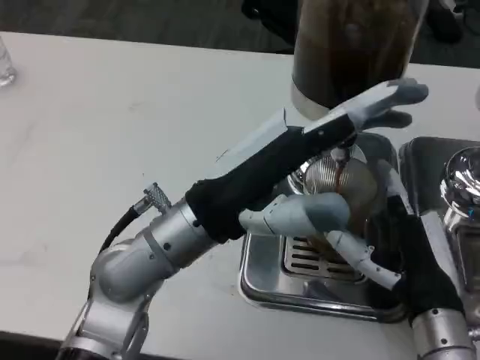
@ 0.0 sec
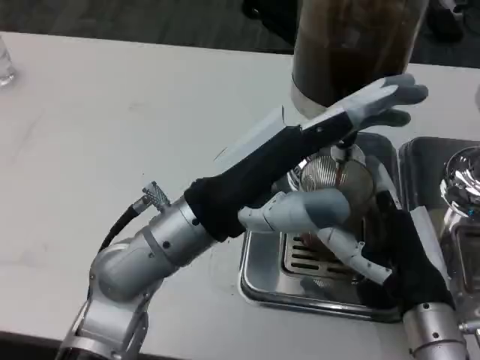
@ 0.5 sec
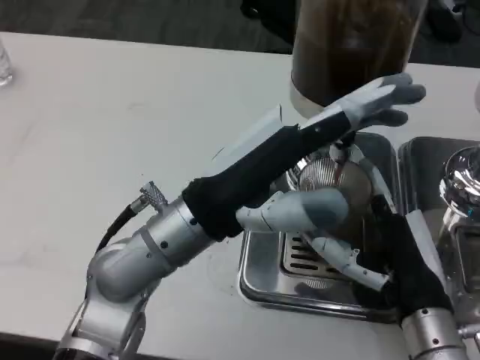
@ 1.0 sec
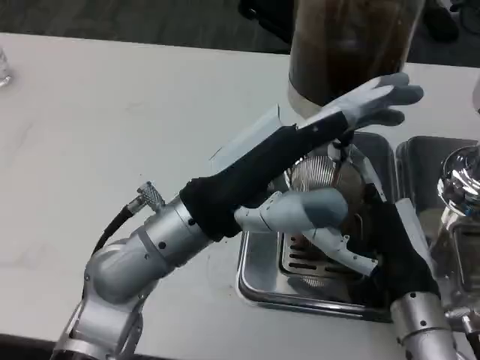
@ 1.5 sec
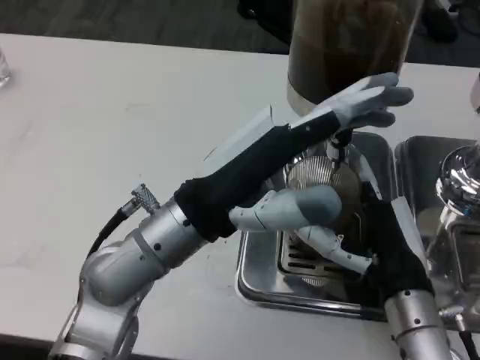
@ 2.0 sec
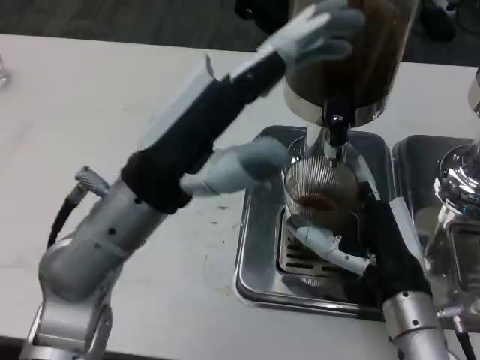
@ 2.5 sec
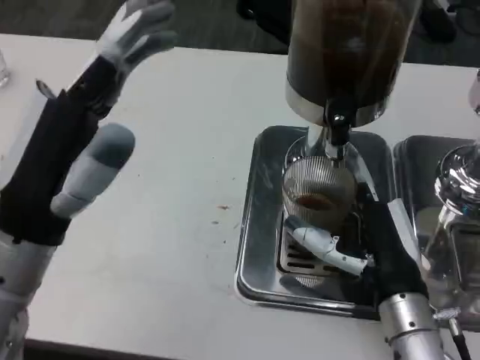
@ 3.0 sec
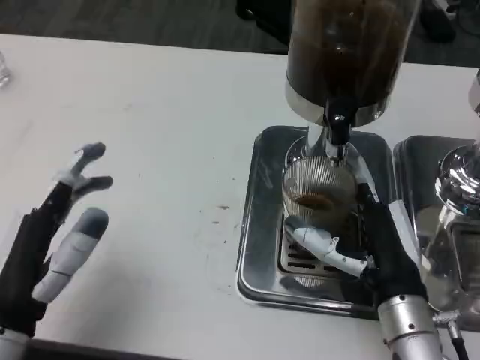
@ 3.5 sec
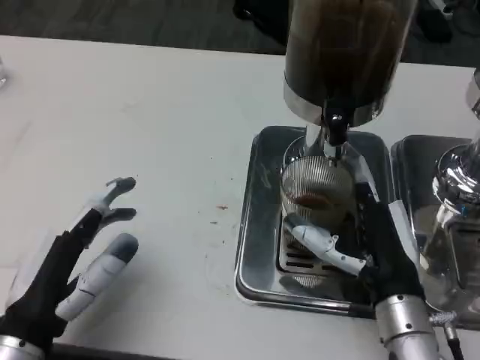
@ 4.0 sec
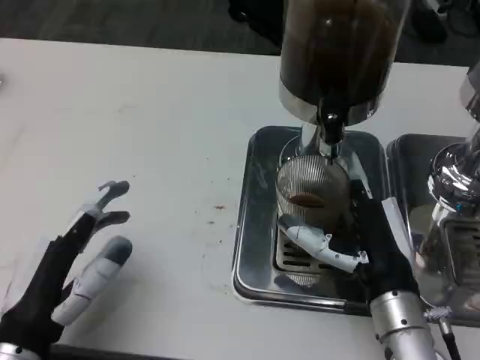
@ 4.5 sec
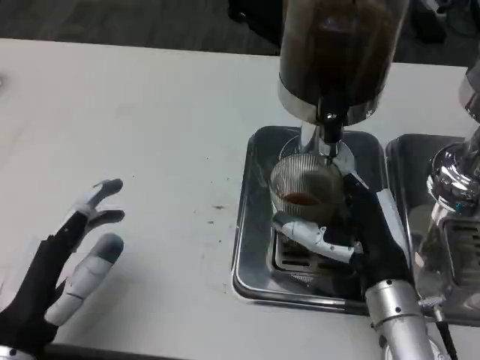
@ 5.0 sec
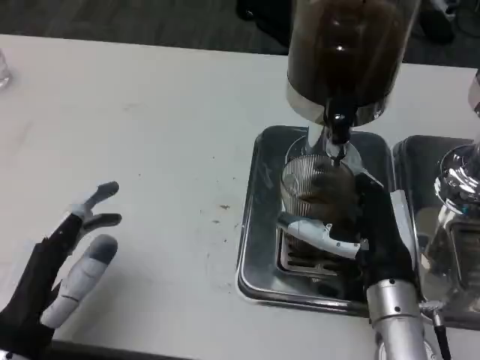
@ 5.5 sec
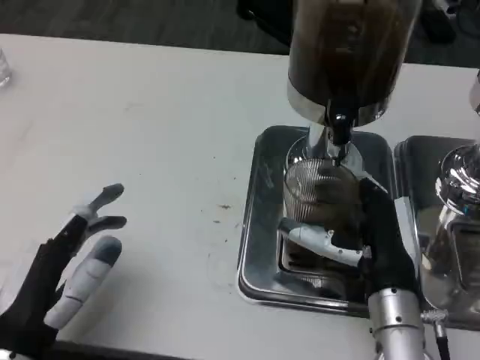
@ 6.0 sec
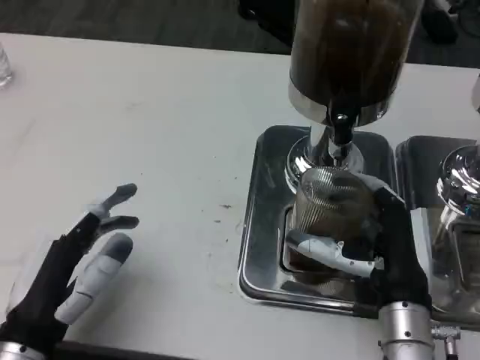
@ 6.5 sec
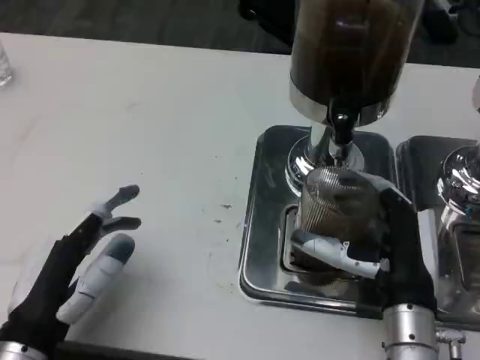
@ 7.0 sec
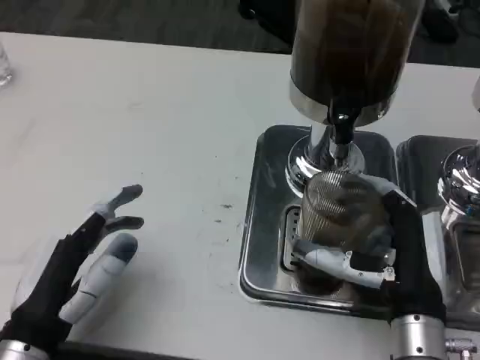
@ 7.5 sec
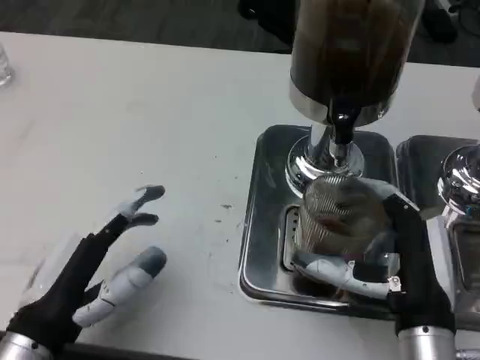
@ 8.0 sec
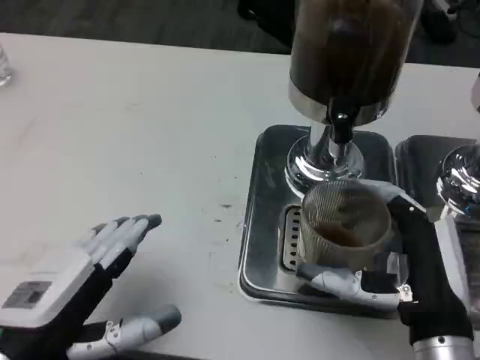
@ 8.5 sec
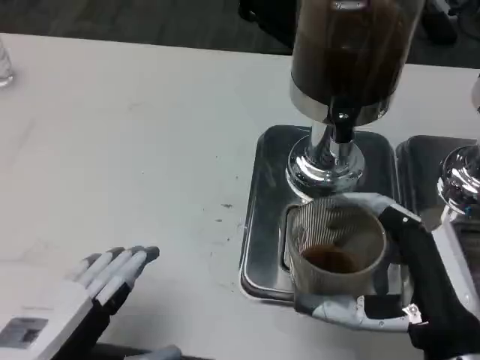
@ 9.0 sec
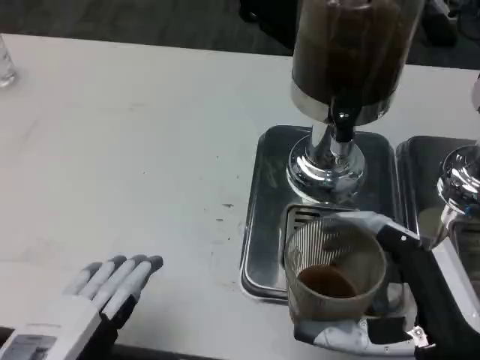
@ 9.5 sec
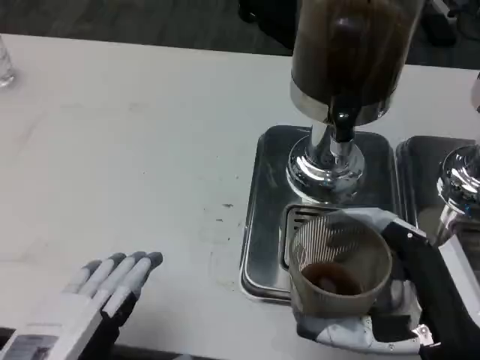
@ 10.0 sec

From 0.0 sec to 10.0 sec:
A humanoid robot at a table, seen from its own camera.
Task of the whole recording: Grasp the cup under the faucet to collect the drink, then remove the cup.
From 2.0 sec to 4.0 sec: The left hand is displaced to the left, backward and downward by roughly 20 cm.
From 4.0 sec to 6.0 sec: There are only small adjustments of the hands.
From 8.0 sec to 10.0 sec: Both hands move backward, roughly 5 cm.

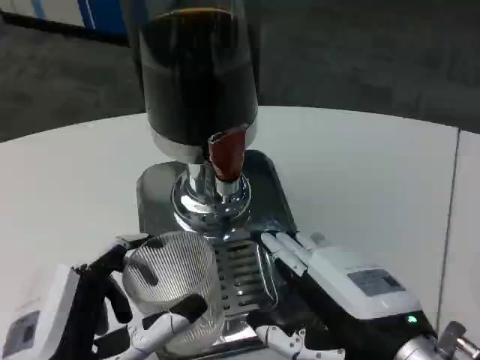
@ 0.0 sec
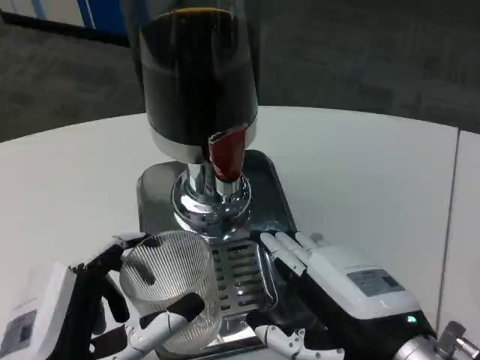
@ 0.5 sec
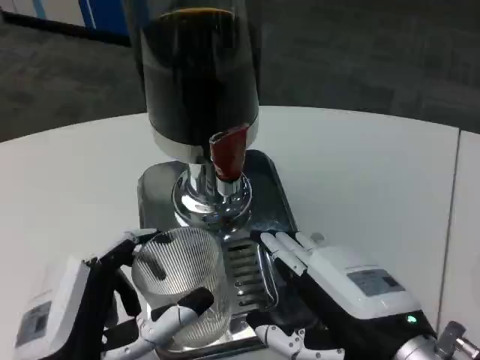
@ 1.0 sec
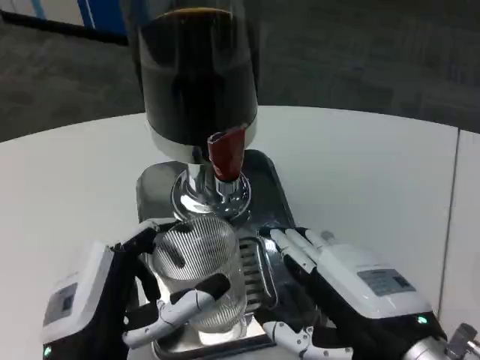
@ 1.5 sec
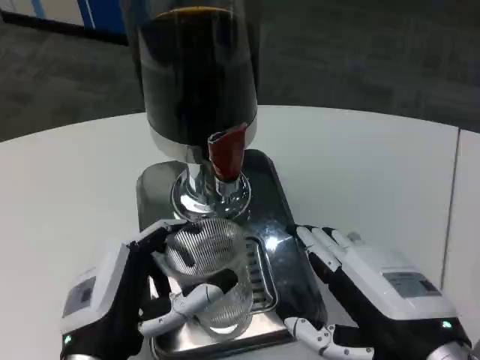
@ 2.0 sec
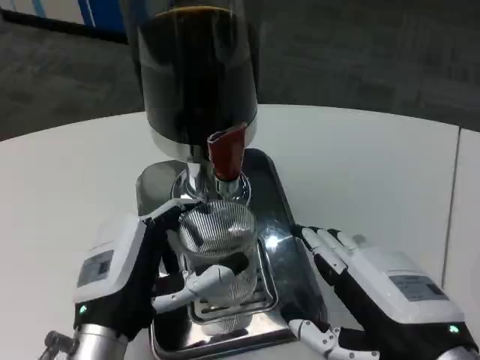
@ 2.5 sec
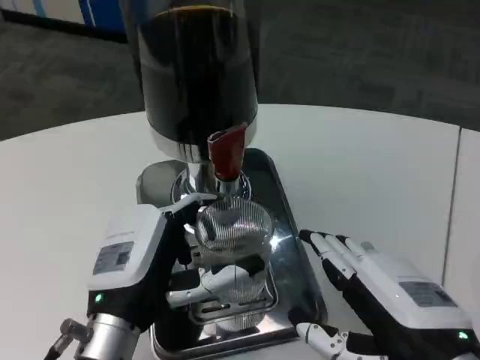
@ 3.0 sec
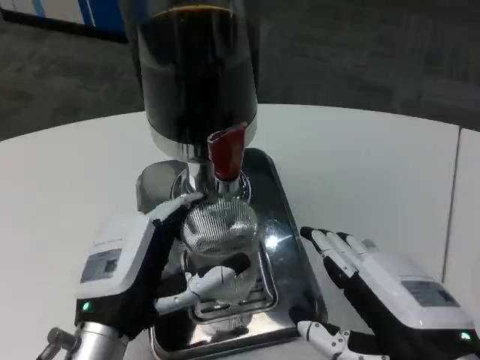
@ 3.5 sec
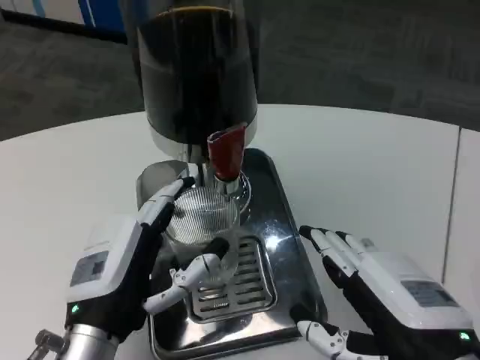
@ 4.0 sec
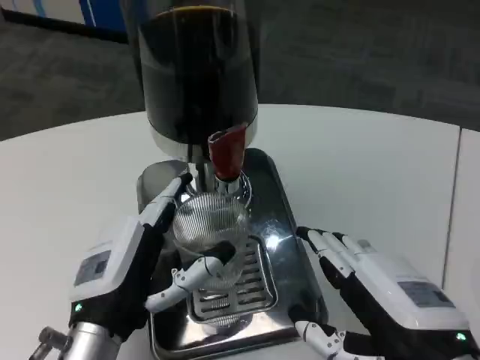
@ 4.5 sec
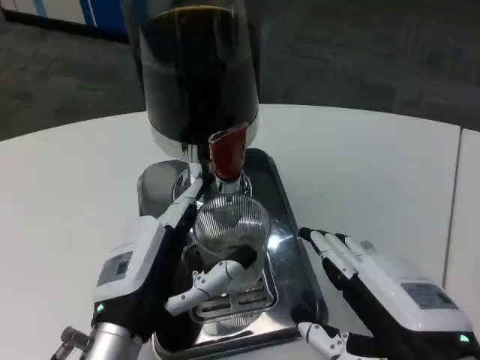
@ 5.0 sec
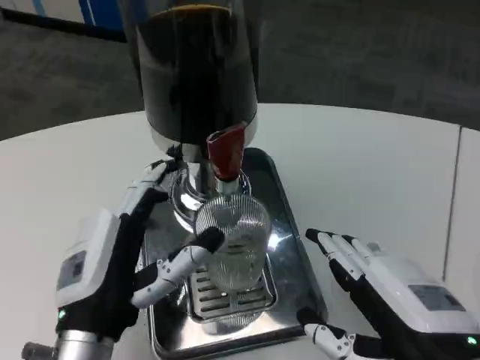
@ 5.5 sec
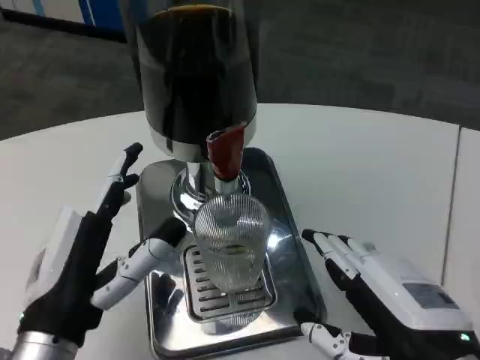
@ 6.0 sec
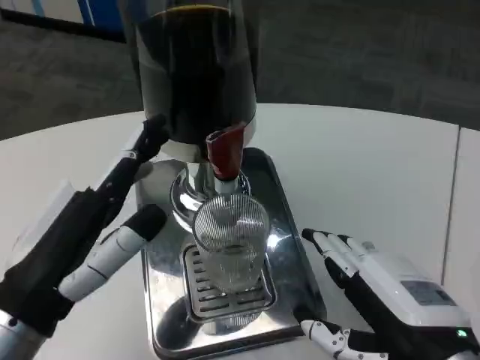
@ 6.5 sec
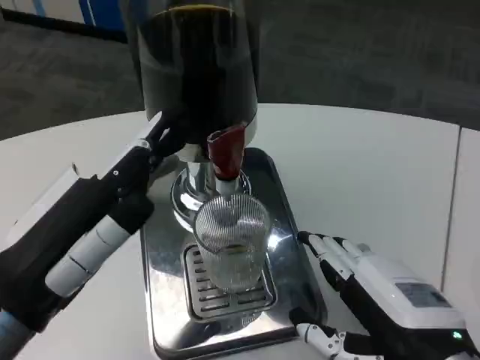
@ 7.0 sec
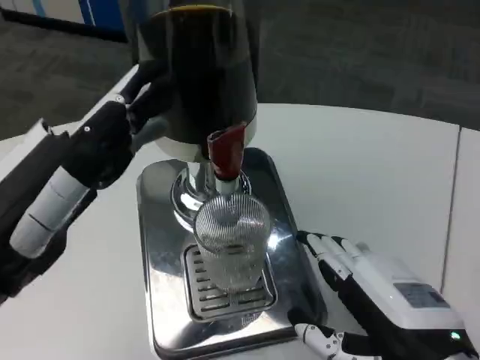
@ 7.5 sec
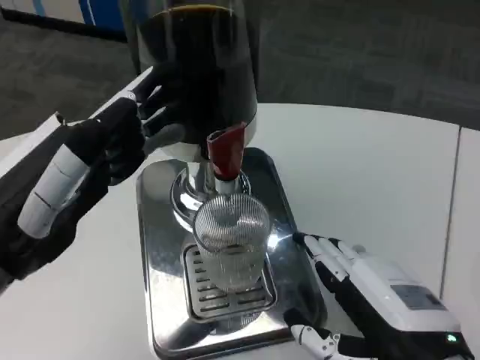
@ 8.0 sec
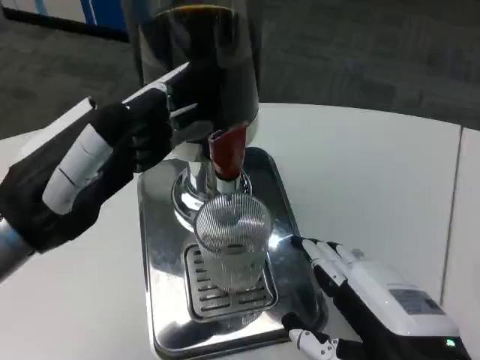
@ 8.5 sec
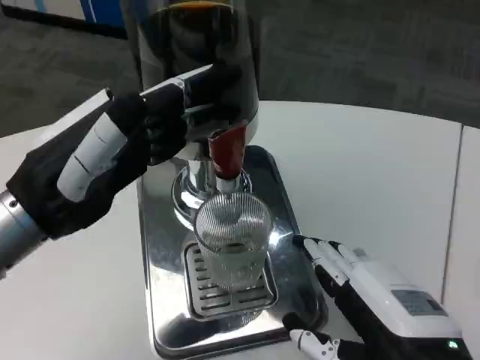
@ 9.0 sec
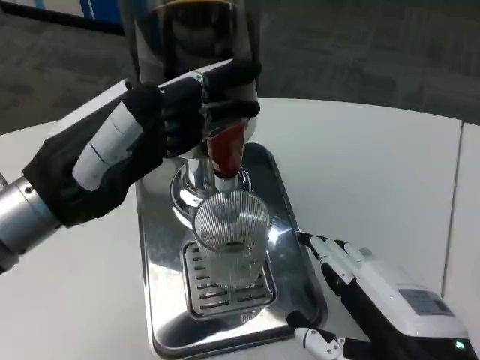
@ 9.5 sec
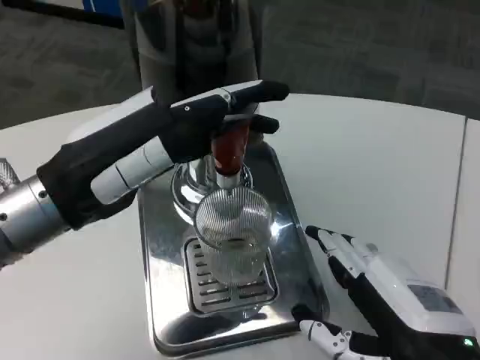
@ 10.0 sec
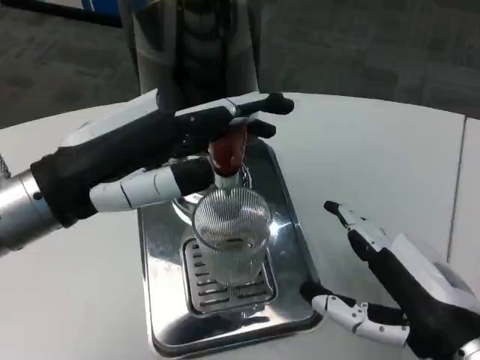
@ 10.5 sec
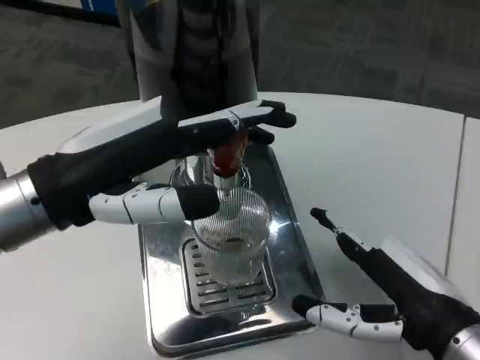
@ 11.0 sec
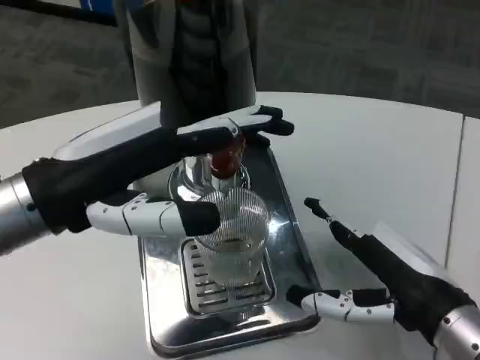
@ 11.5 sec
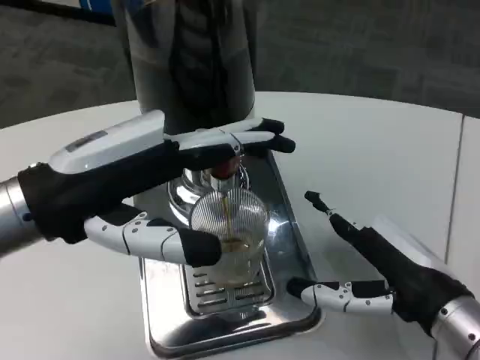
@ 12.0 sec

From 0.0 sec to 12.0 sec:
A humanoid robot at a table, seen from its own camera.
Task of the whole recording: Grasp the cup under the faucet to collect the drink, then remove the cup.
From 0.0 sec to 2.0 sec: The left hand shifts about 5 cm forward.
From 2.0 sec to 6.0 sec: The hands make only small movements.
From 6.0 sec to 8.0 sec: The left hand moves upward and to the left, approximately 10 cm.
From 8.0 sec to 10.0 sec: The left hand is displaced forward by some 5 cm.
From 10.0 sec to 12.0 sec: The right hand shifts some 5 cm forward.

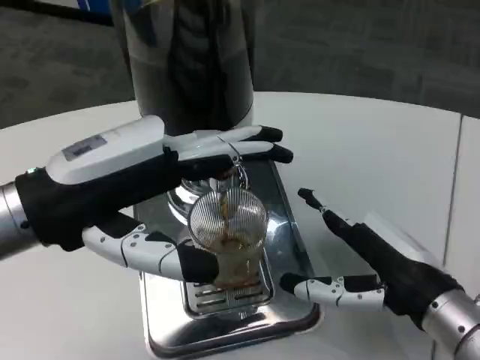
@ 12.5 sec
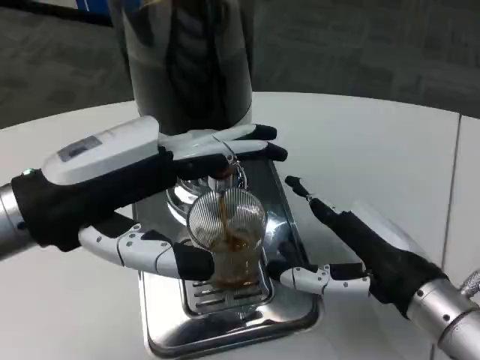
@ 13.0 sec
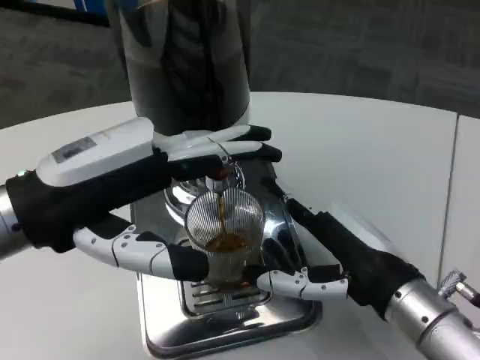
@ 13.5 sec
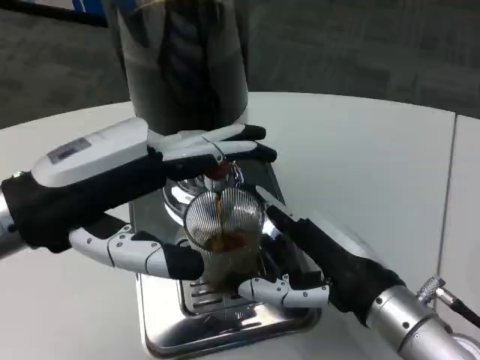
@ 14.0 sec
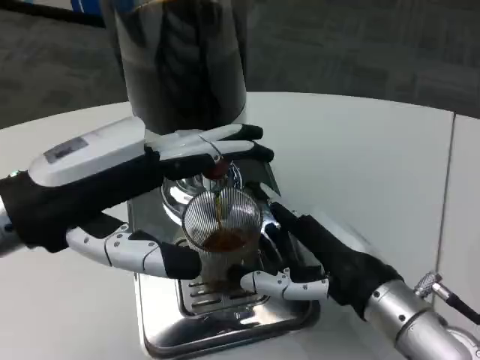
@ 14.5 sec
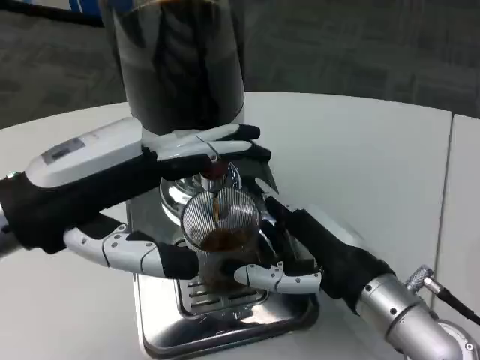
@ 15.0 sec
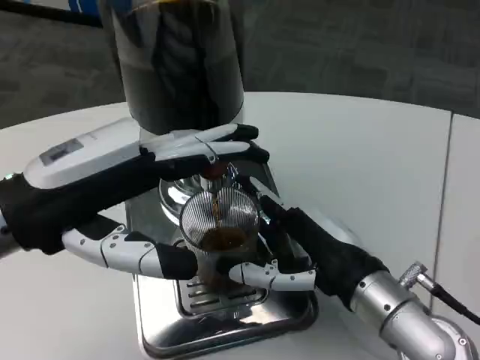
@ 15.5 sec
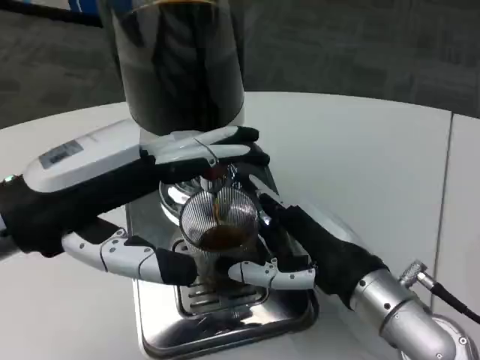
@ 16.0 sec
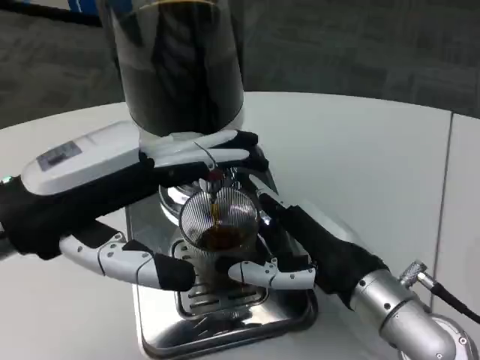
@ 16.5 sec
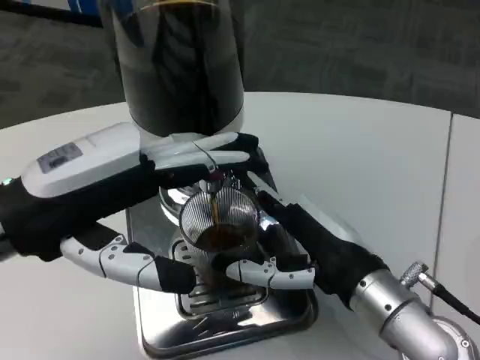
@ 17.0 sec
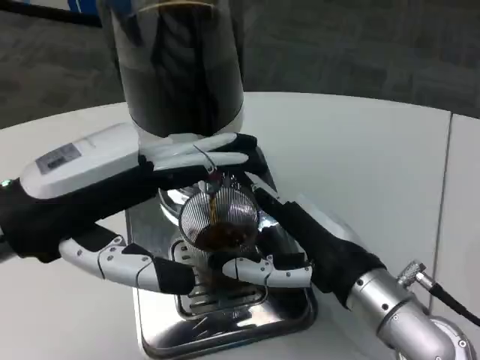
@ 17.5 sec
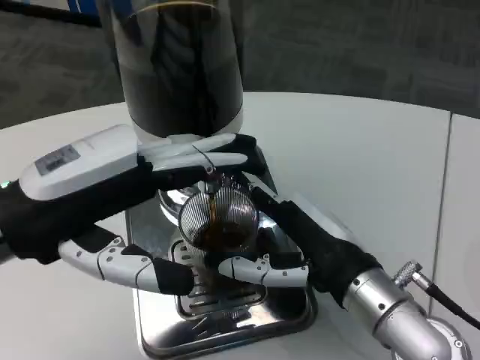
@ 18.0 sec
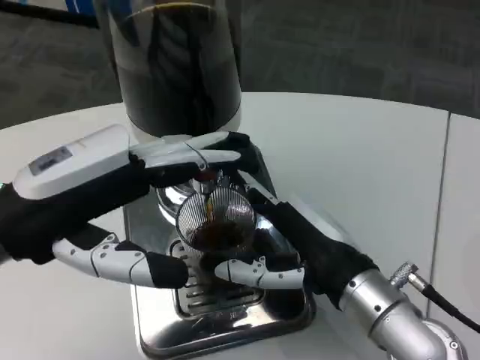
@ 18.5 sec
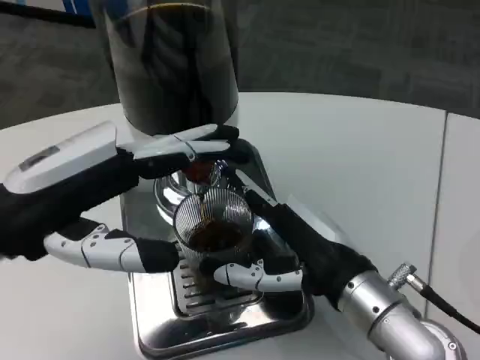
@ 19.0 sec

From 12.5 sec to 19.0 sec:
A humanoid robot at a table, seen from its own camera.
Task of the whole recording: Grasp the cup under the faucet to collect the drink, then remove the cup.
From 14.5 sec to 17.0 sec: Both hands stay about where they are.
